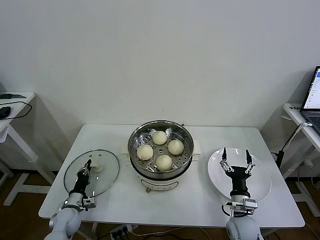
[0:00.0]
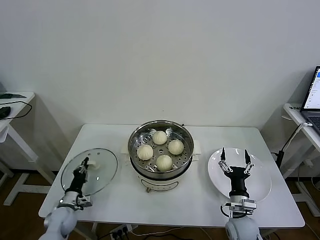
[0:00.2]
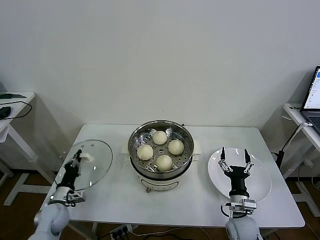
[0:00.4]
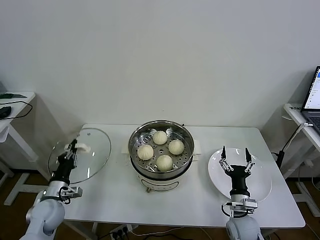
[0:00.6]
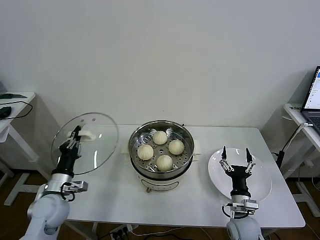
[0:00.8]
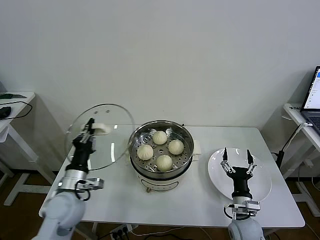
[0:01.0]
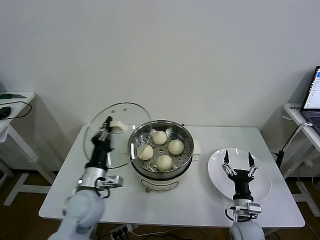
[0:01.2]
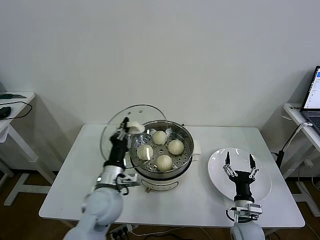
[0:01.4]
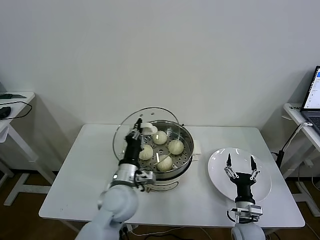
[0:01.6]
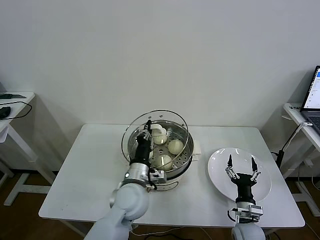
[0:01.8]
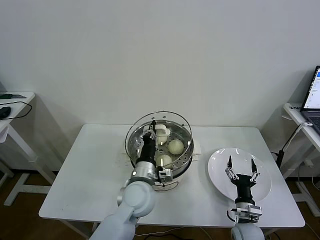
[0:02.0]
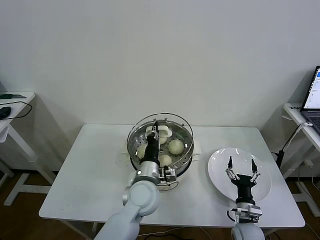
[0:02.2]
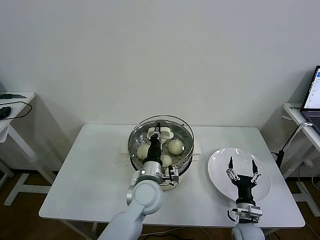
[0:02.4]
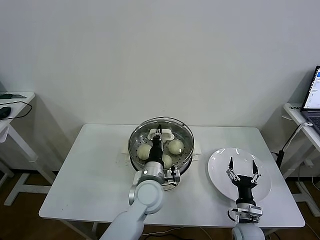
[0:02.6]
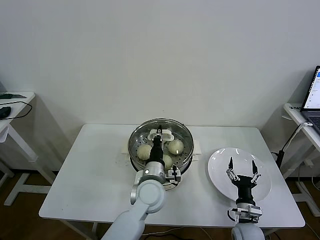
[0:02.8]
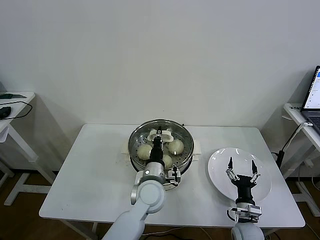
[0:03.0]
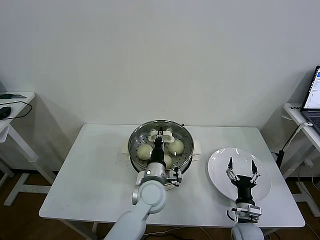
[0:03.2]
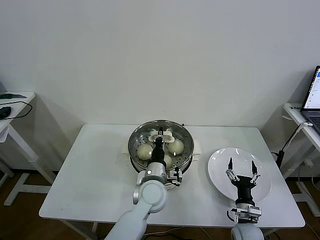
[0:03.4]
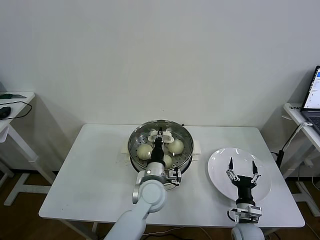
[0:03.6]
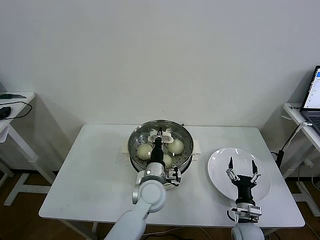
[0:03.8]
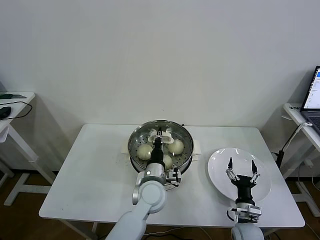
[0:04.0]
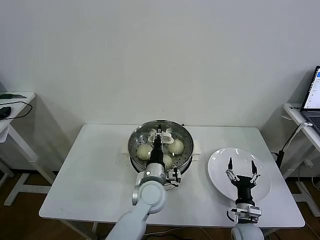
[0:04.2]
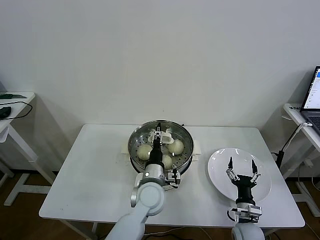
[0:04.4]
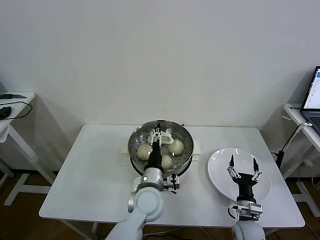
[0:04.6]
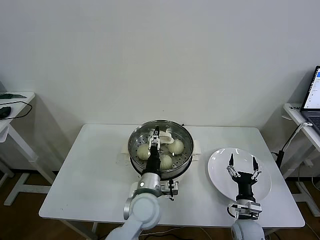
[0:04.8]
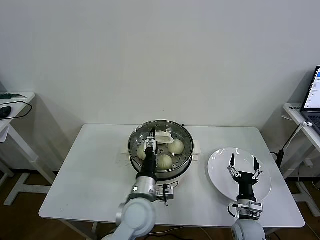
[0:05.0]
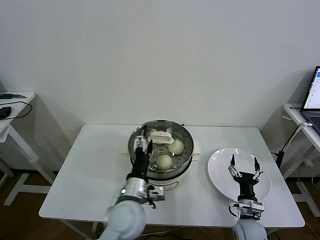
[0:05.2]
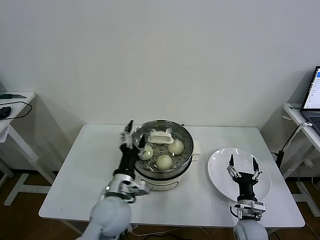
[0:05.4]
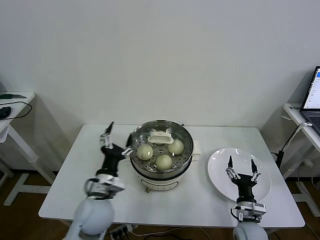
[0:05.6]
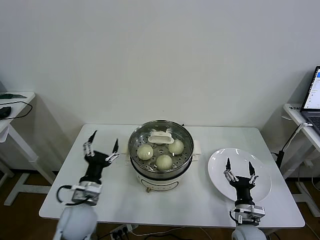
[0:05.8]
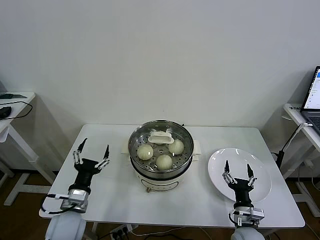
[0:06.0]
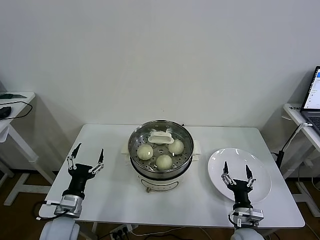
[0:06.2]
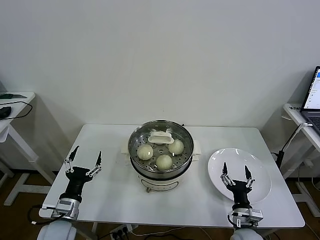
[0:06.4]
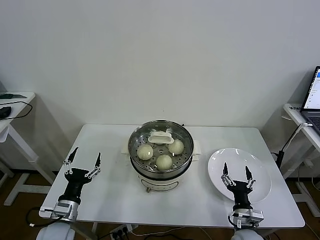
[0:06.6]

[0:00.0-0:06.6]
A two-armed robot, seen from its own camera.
Task of the whole recording: take steamed baozi put them in steamer then cover it.
Step, 0:00.0 to 0:04.2: Place the pot lid on the steamer with left gripper.
0:00.0 to 0:01.6: The left gripper goes about 30 cm to the right and upward.
0:01.6 to 0:03.2: The left gripper goes approximately 10 cm to the right.
0:03.2 to 0:05.0: The left gripper is displaced backward by approximately 5 cm, and opens up.
0:05.0 to 0:06.6: The left gripper shifts roughly 25 cm to the left.
